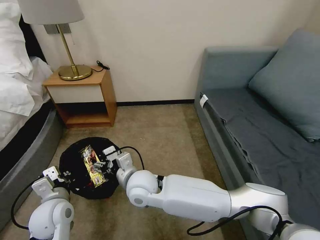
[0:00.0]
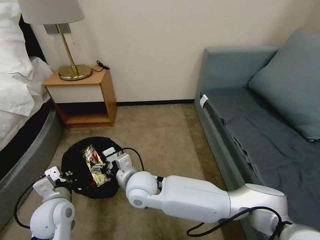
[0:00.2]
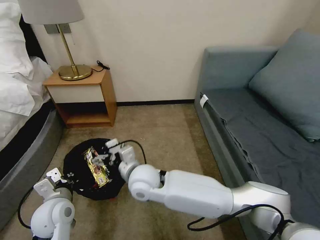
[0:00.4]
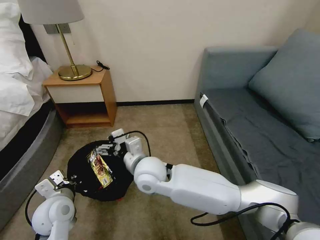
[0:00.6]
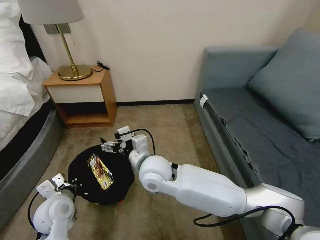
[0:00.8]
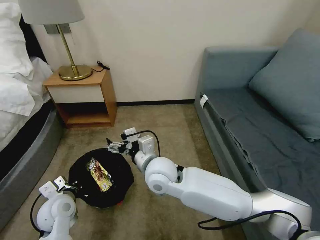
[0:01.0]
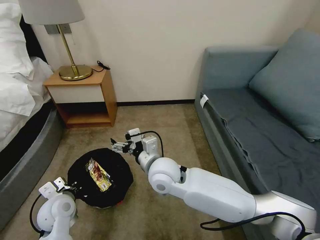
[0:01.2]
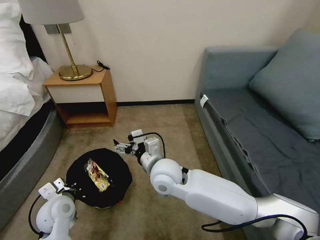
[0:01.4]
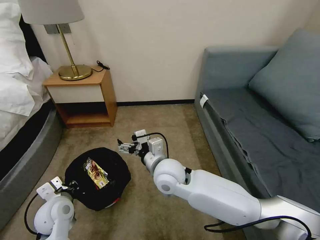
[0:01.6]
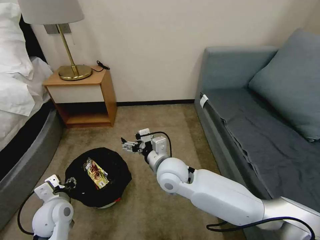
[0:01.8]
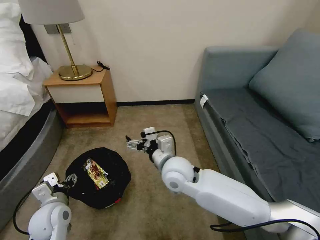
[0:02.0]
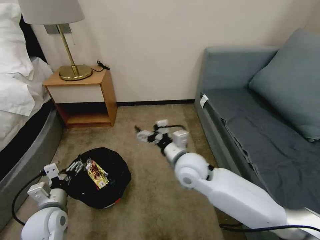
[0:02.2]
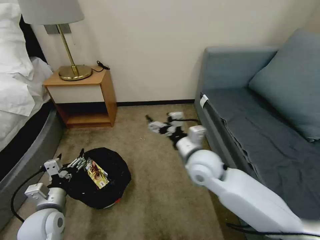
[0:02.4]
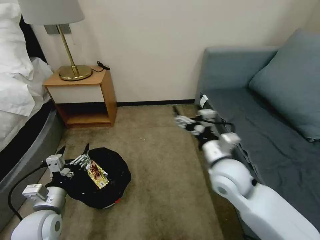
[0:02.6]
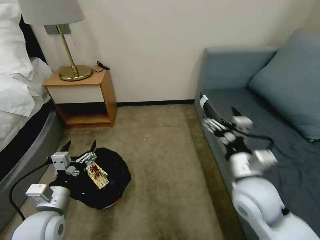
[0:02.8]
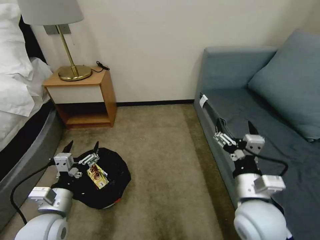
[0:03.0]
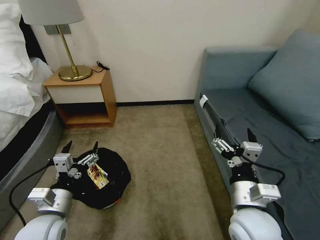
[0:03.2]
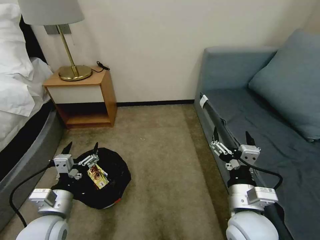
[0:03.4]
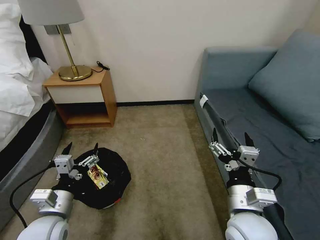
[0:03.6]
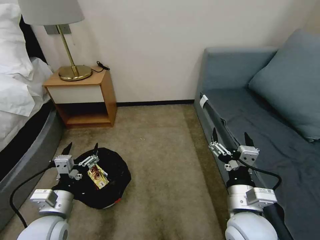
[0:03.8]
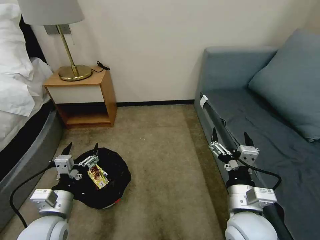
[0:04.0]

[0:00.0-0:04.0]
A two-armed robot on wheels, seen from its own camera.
Task of the whole recording: Pick up the trash bin, then pick up the garbage on the floor and place it into the trash bin.
0:00.0 to 0:01.4: The left gripper shifts by approximately 5 cm; the right gripper goes roughly 5 cm to the right.
0:01.4 to 0:02.6: The left gripper moves approximately 5 cm, and opens its fingers; the right gripper goes about 15 cm to the right.
0:02.6 to 0:04.0: The right gripper moves backward, about 15 cm.

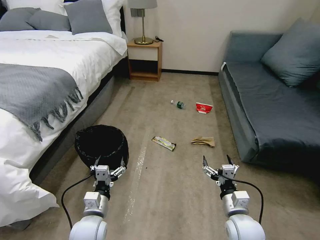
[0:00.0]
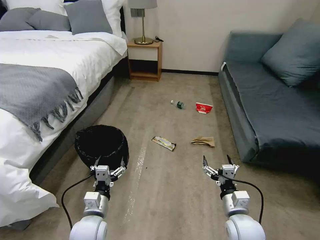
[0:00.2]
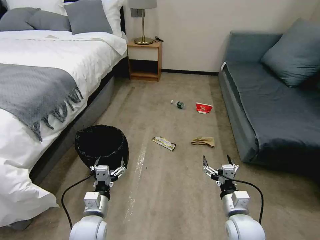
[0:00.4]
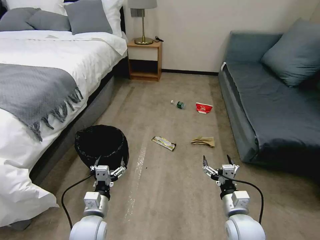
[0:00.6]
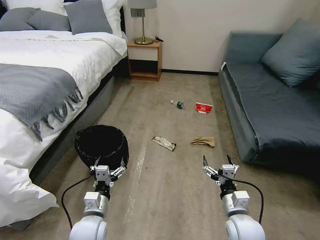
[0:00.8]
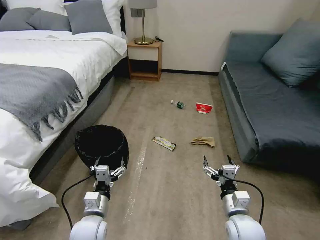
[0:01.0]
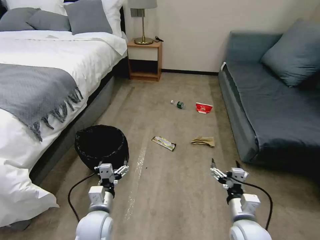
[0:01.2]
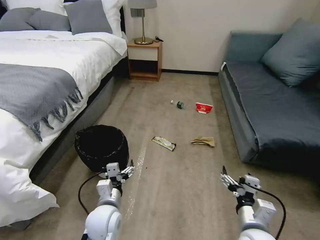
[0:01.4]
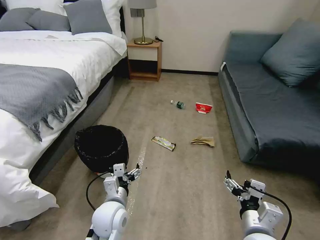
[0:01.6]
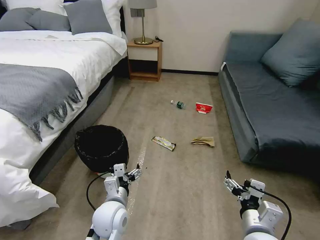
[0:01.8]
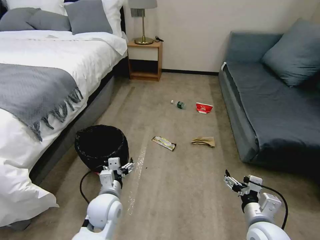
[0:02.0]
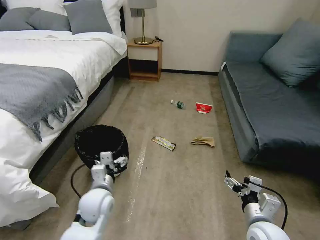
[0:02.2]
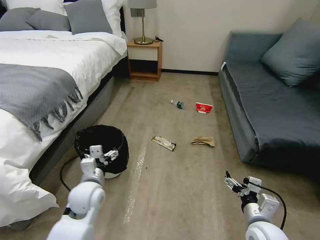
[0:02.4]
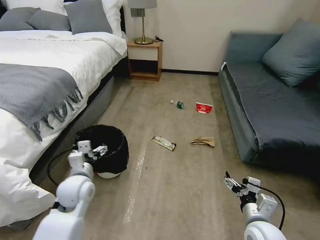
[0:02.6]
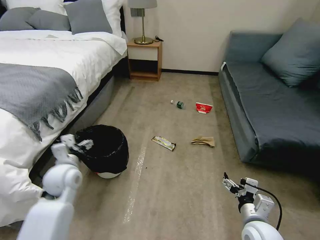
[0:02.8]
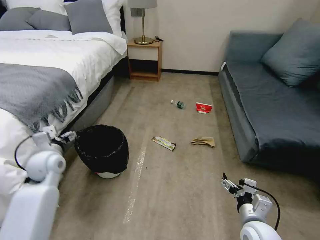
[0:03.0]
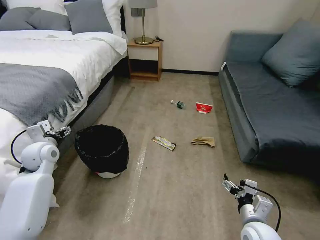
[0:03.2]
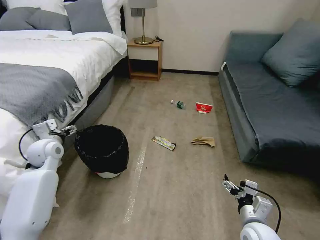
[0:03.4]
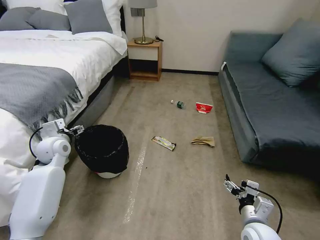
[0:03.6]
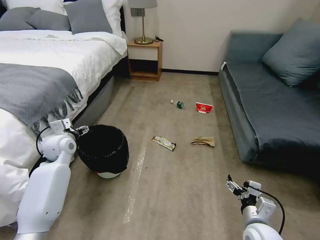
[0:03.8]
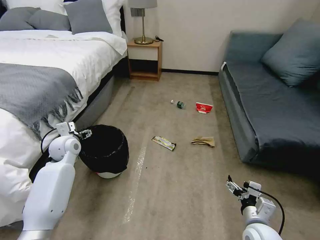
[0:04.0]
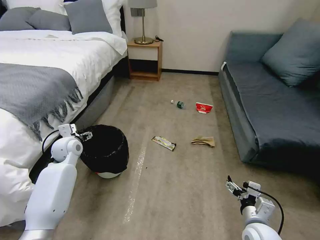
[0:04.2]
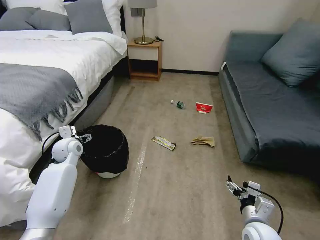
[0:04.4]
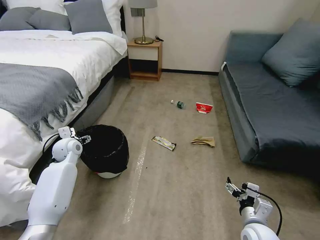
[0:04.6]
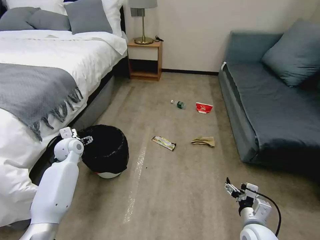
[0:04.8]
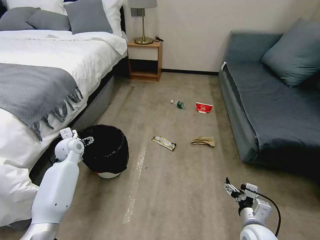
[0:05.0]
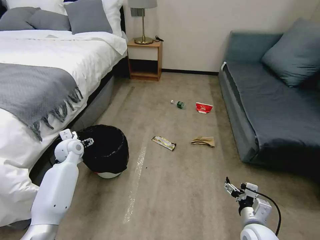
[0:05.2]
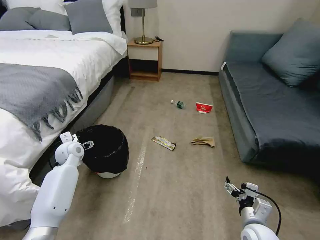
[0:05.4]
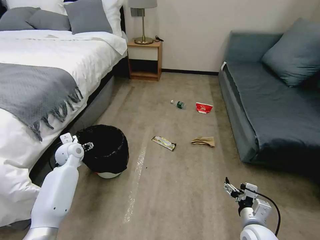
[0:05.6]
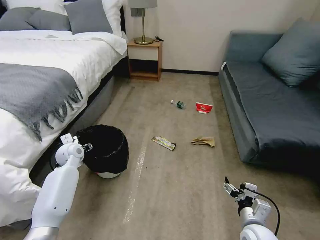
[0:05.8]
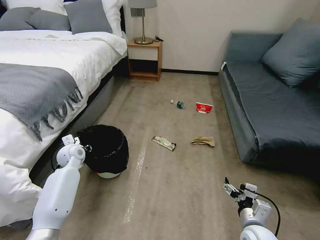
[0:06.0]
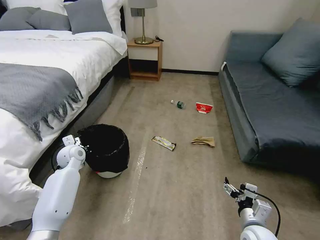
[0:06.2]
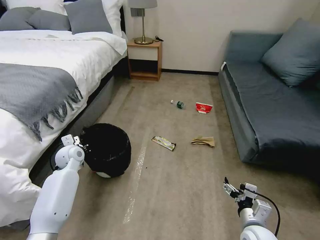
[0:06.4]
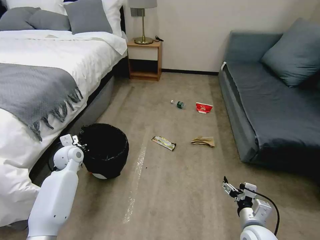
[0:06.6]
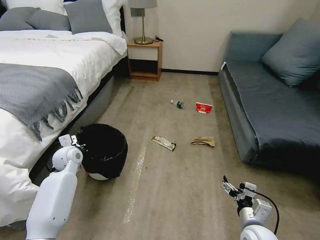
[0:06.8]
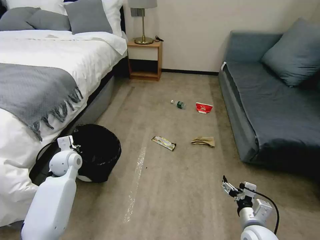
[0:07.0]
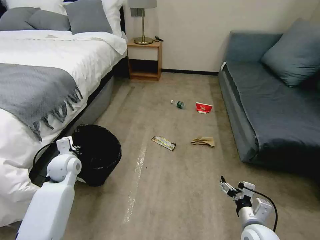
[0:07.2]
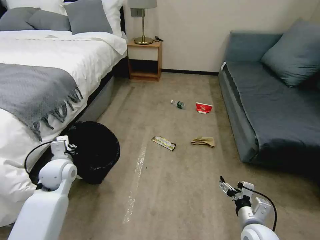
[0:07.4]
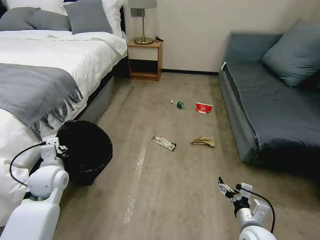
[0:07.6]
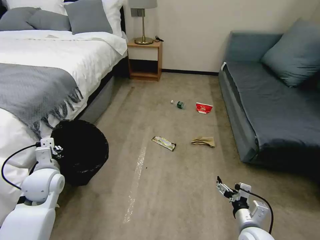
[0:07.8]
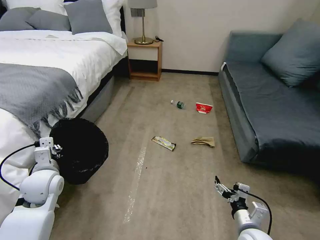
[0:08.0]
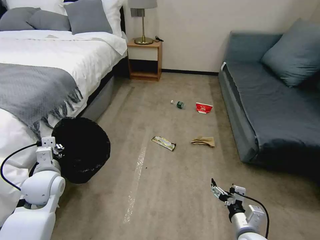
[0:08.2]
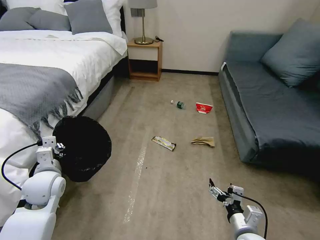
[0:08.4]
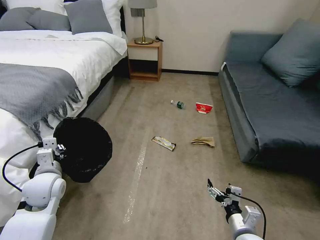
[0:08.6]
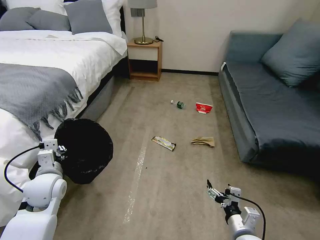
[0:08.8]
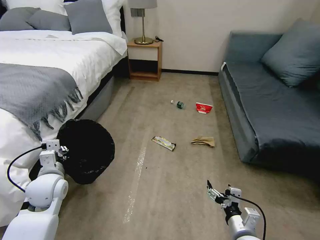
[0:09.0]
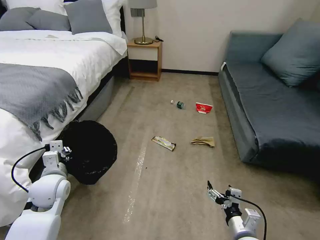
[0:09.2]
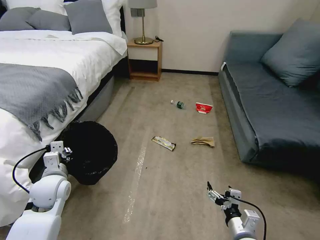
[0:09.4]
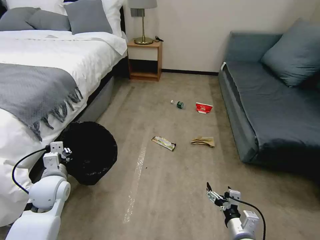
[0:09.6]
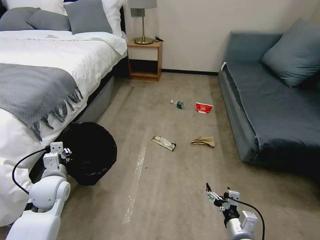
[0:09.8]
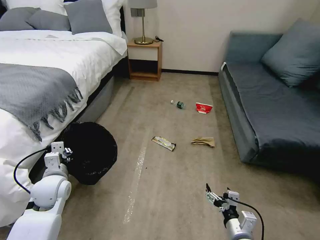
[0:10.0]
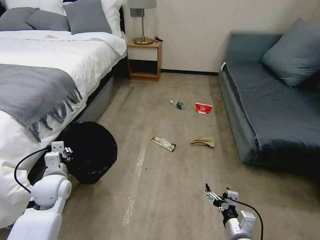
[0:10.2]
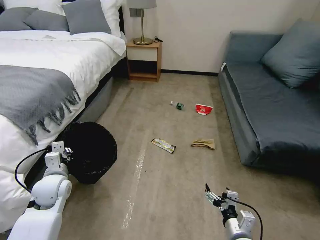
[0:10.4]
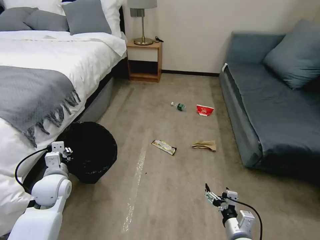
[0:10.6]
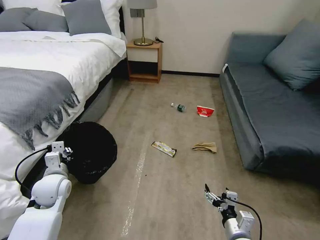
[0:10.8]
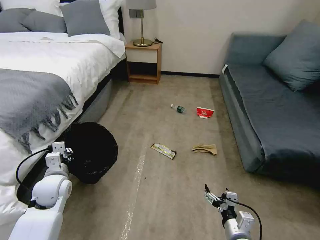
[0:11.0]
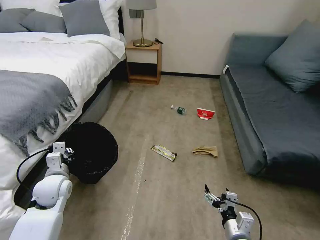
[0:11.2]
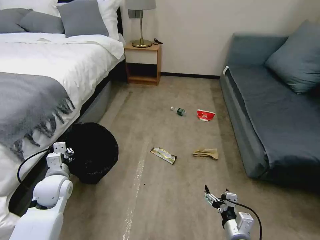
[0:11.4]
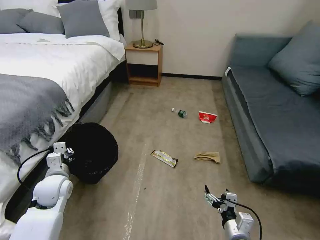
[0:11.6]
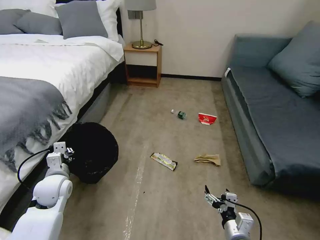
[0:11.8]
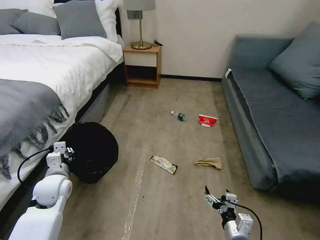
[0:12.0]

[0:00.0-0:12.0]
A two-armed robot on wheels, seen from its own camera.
Task of the whole recording: Pick up the trash bin, then pick up the garbage on the floor and place it into the trash bin.
0:01.6 to 0:03.0: The right gripper is displaced downward by about 5 cm, while the left gripper travels to the left, forward and upward by about 25 cm.
0:03.0 to 0:04.4: The left gripper shifts roughly 10 cm forward.
0:04.4 to 0:06.0: The left gripper closes up.
0:06.0 to 0:07.6: The left gripper shifts about 15 cm backward and upward, and closes its fingers.
0:07.6 to 0:10.4: There are only small adjustments of the grippers.

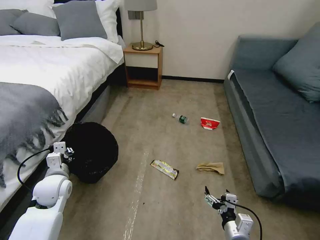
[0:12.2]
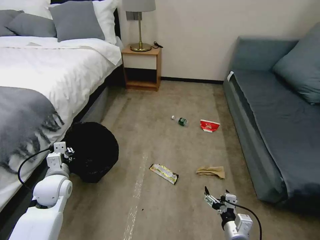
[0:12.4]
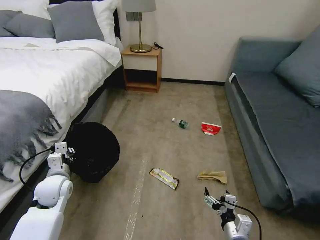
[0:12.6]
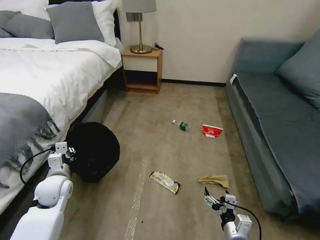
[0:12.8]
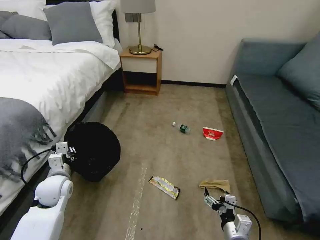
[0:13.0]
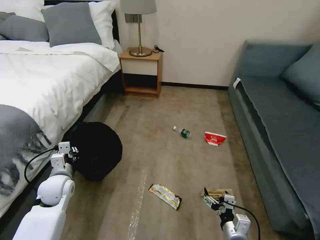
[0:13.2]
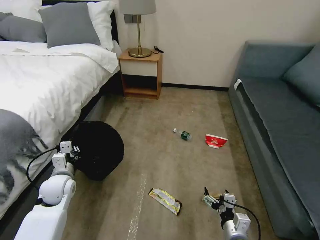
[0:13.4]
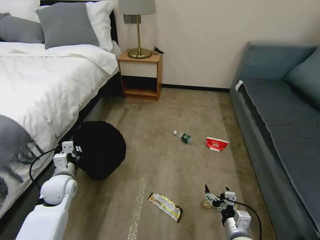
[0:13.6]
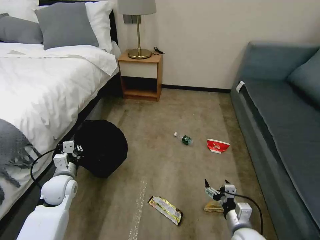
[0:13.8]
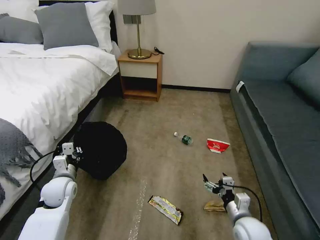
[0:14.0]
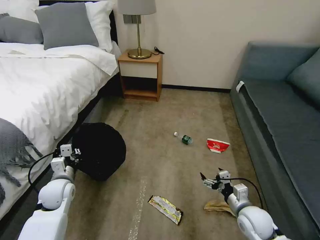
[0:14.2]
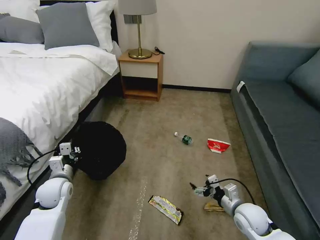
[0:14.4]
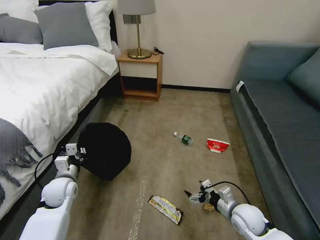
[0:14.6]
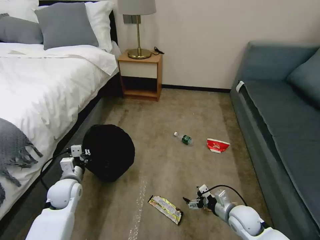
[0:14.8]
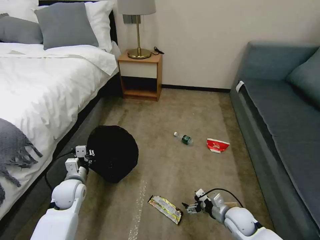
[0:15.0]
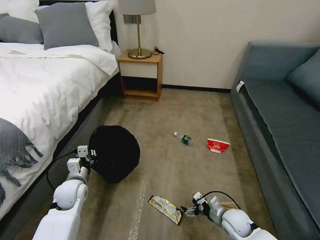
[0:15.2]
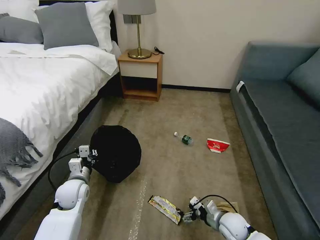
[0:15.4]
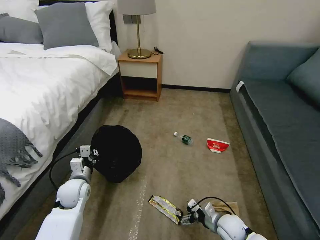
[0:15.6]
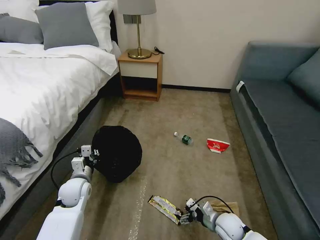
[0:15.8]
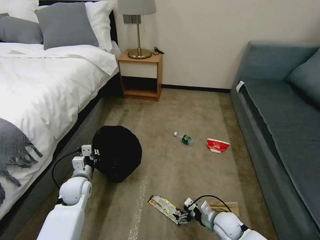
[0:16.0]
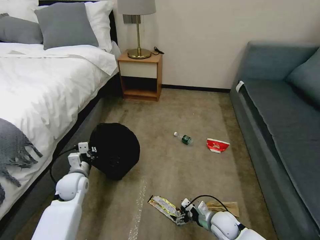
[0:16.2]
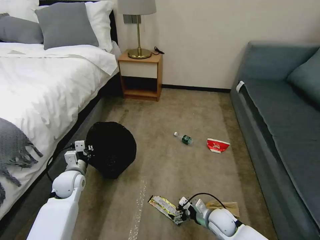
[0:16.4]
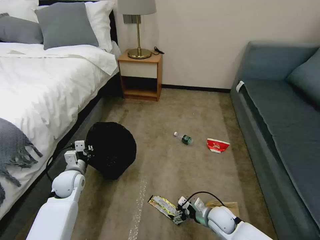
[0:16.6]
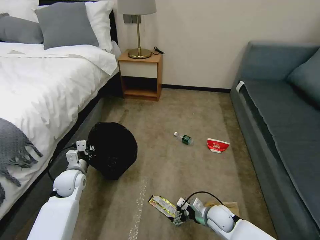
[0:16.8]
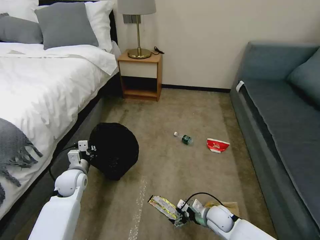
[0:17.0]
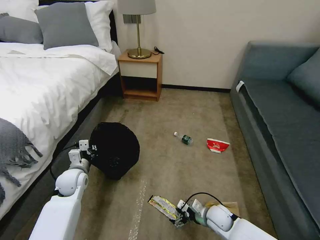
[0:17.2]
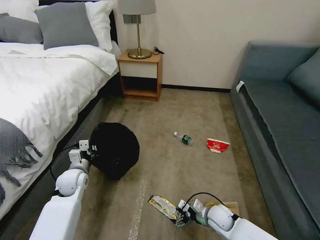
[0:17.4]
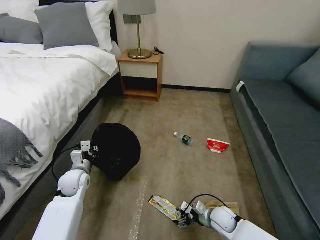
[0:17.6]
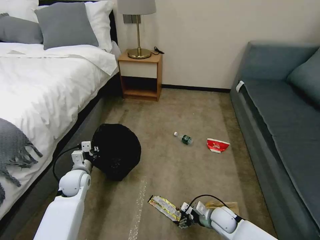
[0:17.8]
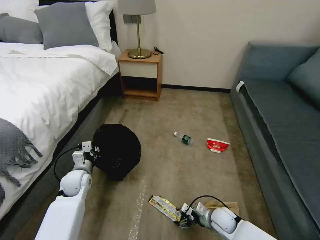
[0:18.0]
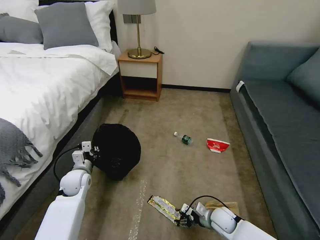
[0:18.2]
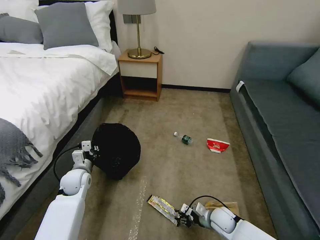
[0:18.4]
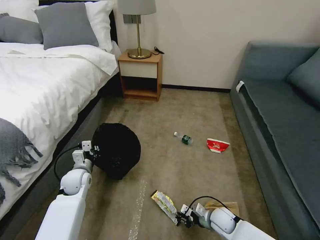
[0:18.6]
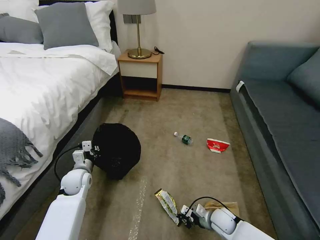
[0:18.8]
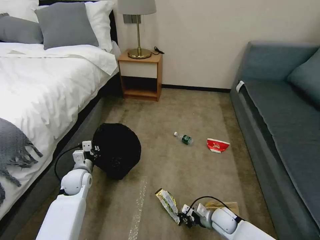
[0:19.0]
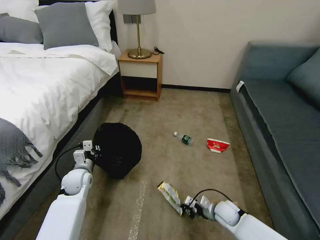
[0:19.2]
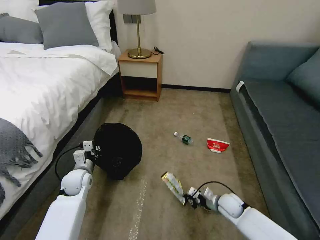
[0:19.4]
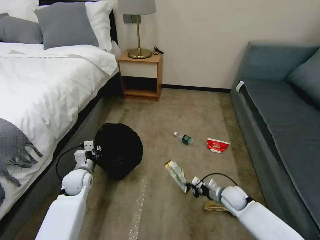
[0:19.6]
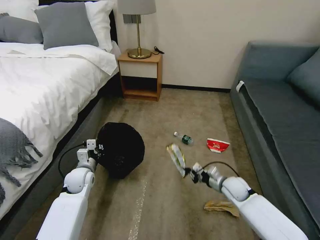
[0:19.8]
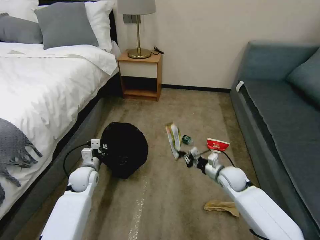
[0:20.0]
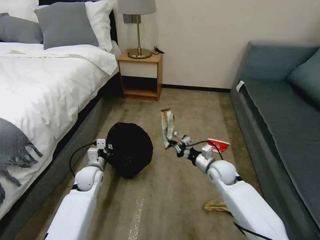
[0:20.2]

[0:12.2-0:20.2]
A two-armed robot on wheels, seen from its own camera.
Task of the whole recording: Pick up the trash bin, then pick up the garbage on the floor and place it into the trash bin.
0:13.8 to 0:15.4: The right gripper shifts roughly 10 cm downward and forward.
0:15.4 to 0:17.0: The grippers make only small movements.
0:17.0 to 0:18.6: The right gripper closes up.
0:18.6 to 0:20.2: The right gripper moves upward and forward, about 20 cm.
